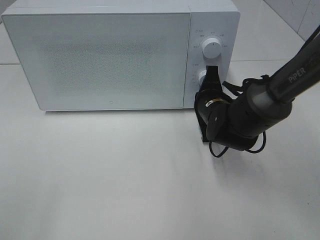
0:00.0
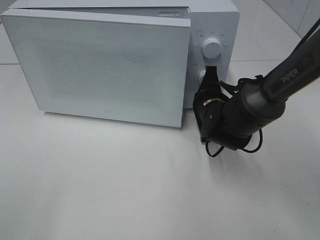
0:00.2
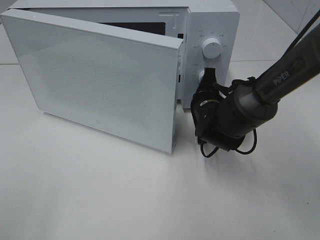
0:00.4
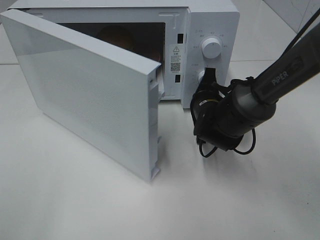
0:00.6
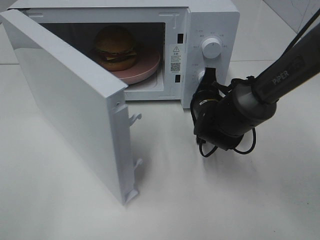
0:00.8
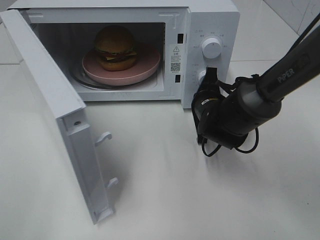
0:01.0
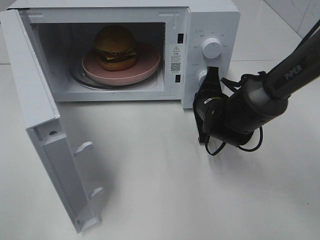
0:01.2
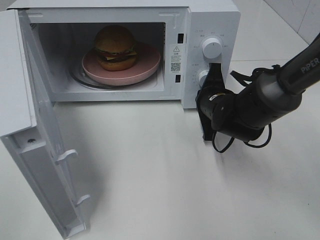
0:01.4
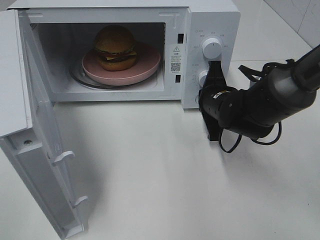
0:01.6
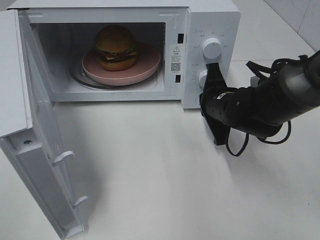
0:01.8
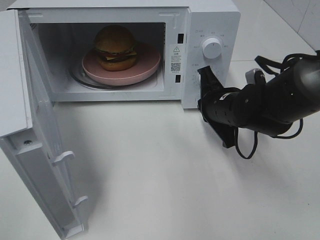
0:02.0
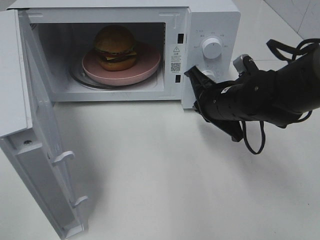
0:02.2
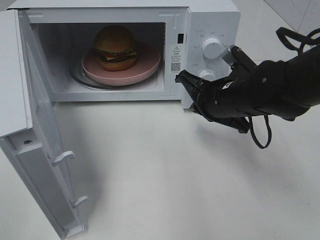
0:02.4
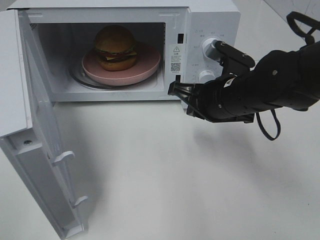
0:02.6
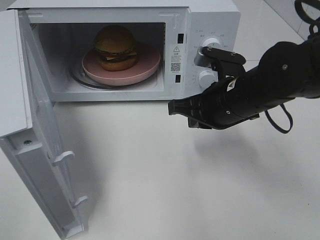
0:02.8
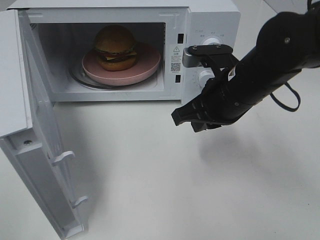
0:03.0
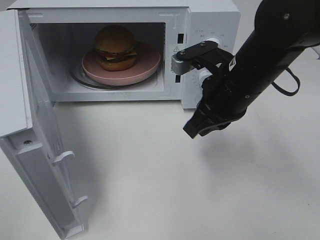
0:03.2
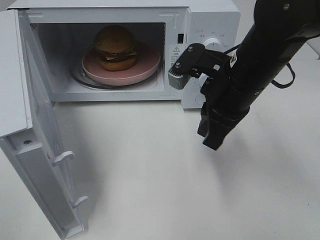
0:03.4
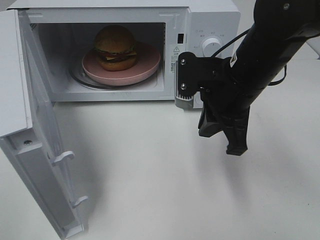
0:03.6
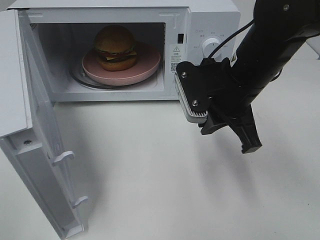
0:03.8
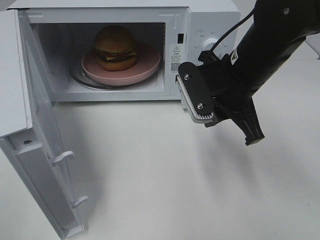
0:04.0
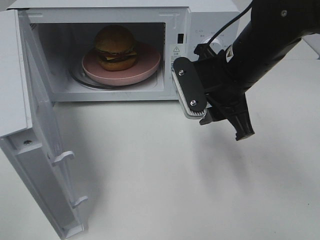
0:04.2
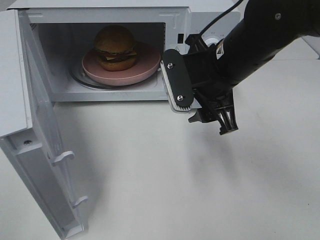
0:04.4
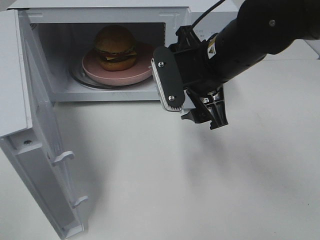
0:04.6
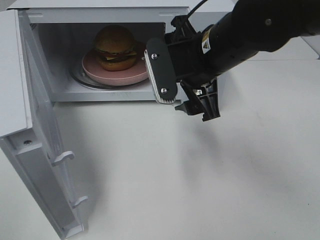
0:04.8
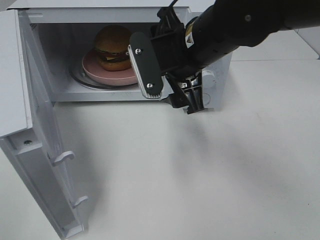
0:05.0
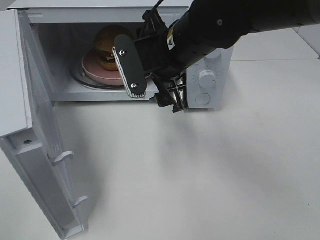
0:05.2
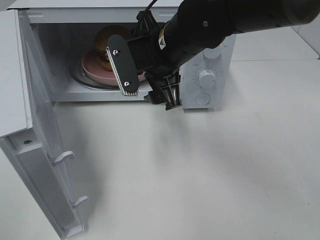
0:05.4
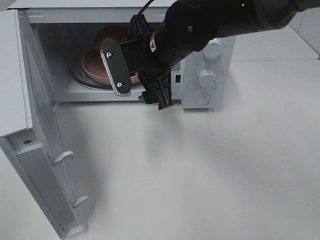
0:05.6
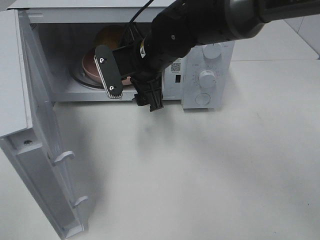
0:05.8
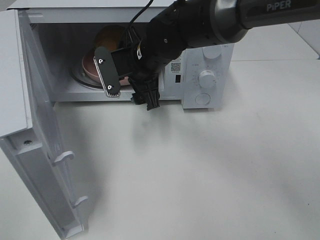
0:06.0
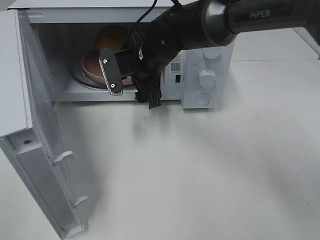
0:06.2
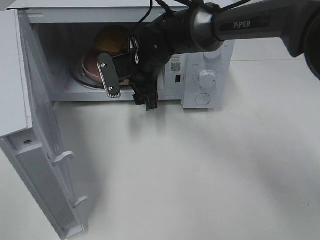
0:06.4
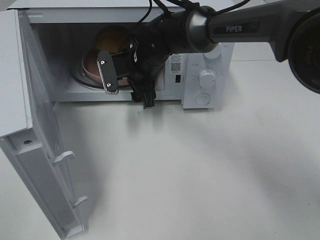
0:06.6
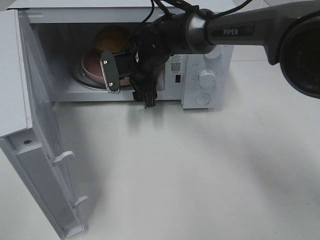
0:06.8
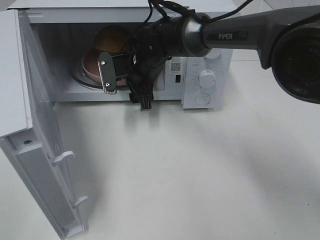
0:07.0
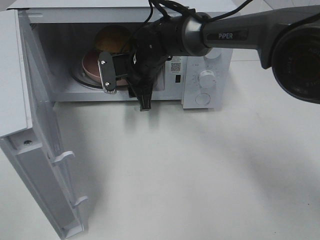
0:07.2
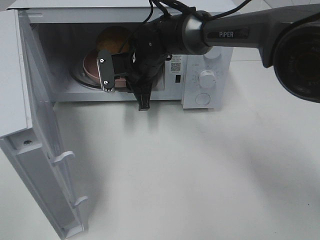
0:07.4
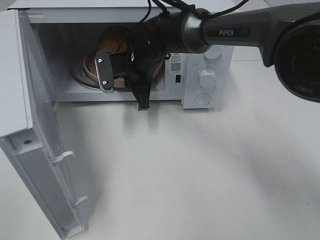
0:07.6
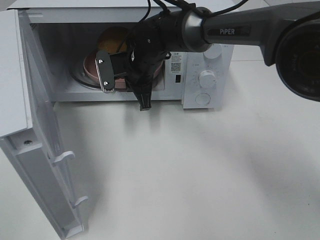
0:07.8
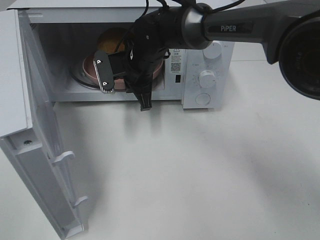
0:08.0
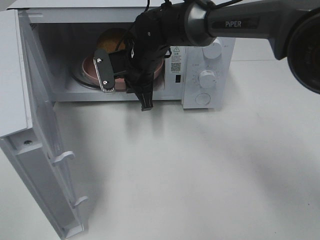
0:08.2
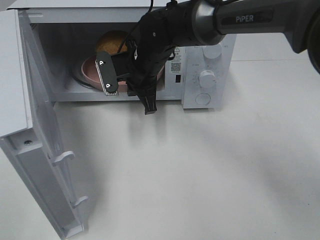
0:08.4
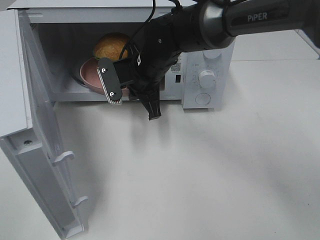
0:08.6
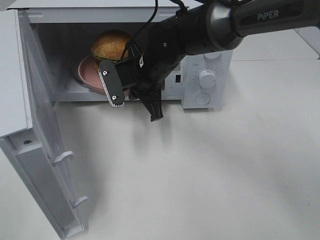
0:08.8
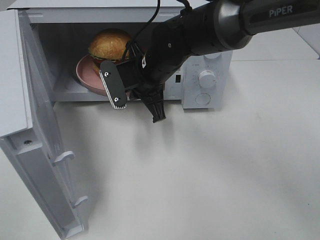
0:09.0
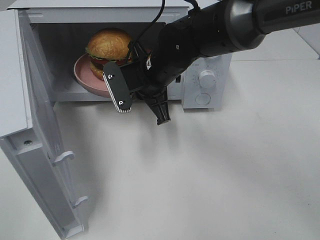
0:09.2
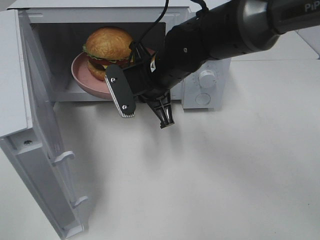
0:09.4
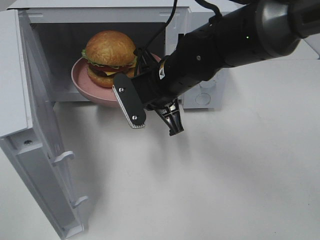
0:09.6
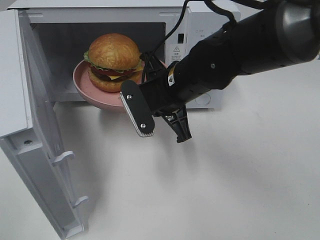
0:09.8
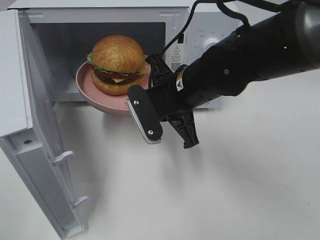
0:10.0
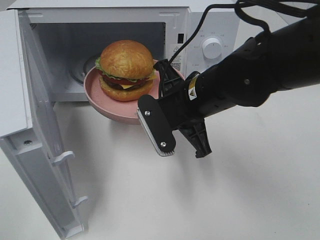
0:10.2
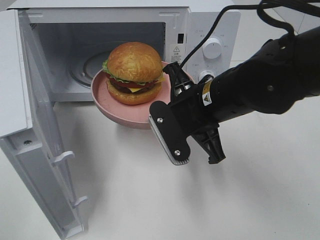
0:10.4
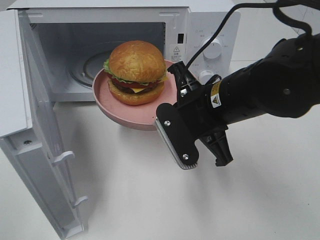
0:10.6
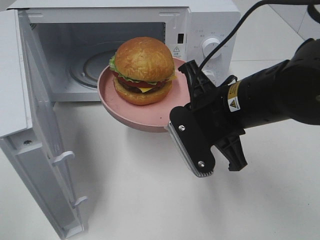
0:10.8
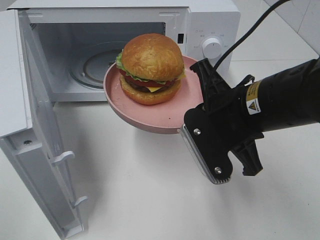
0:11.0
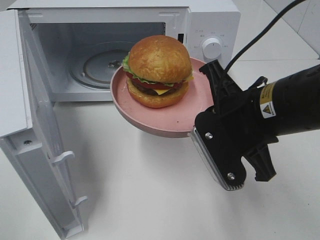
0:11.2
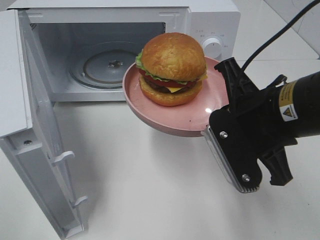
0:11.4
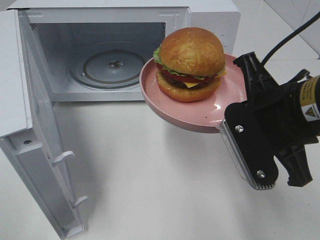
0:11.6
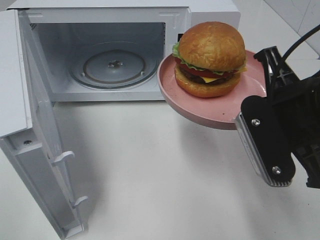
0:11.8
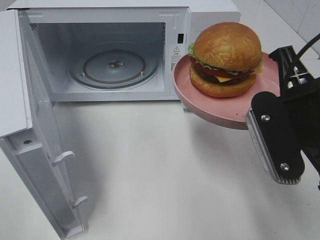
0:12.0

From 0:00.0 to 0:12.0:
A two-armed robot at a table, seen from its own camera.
Task of the whole recording: Heat the burger.
Step, from 0:02.0 to 0:07.6: Right hand: grab the plate with the hamburger.
From 0:01.6 to 0:03.0: The right gripper moves upward and backward, some 10 cm.
From 0:03.0 to 0:04.4: The right gripper opens up.
From 0:04.4 to 0:06.0: The right gripper is displaced to the left and forward by some 15 cm.
From 0:06.0 to 0:07.6: The right gripper shifts some 5 cm forward, and closes up.
From 0:07.6 to 0:09.0: The right gripper travels backward by about 5 cm.
From 0:09.0 to 0:10.4: The right gripper travels backward and to the right by approximately 15 cm.
From 0:10.4 to 0:12.0: The right gripper is displaced to the right, backward and upward by some 15 cm.

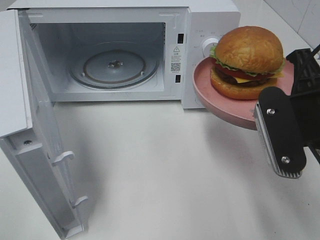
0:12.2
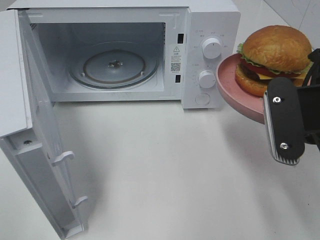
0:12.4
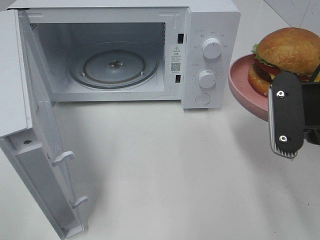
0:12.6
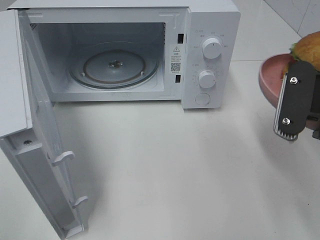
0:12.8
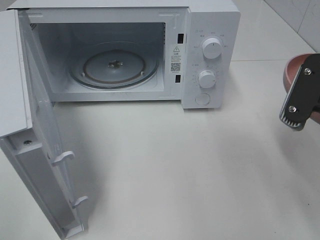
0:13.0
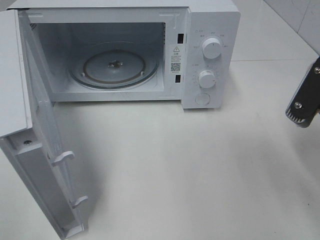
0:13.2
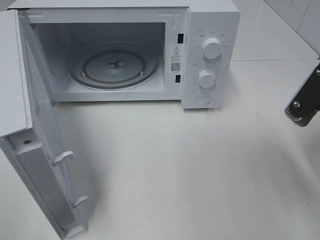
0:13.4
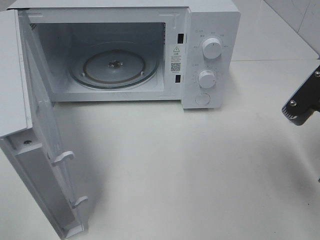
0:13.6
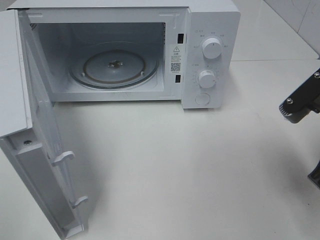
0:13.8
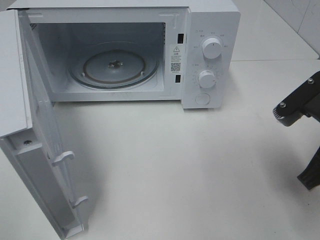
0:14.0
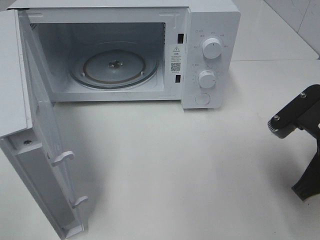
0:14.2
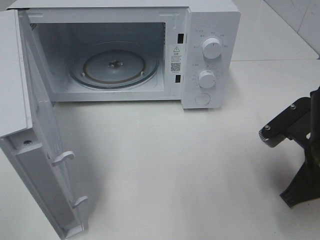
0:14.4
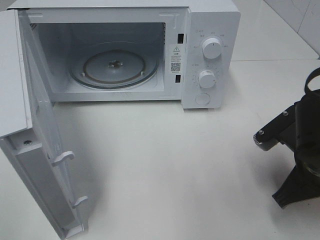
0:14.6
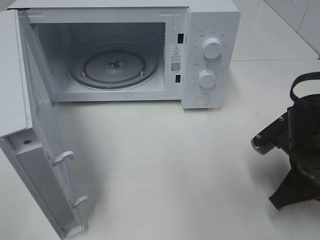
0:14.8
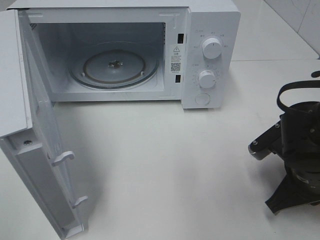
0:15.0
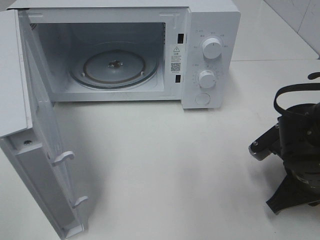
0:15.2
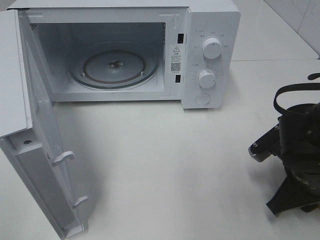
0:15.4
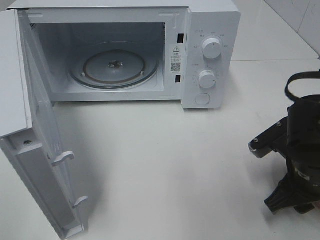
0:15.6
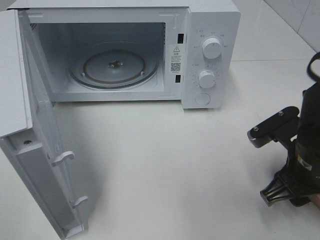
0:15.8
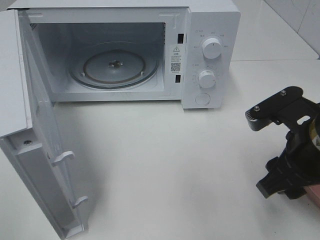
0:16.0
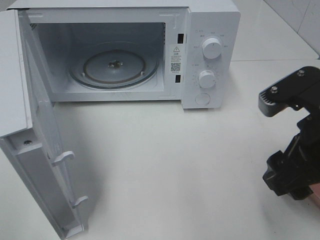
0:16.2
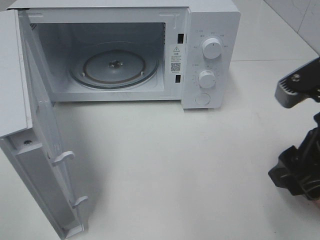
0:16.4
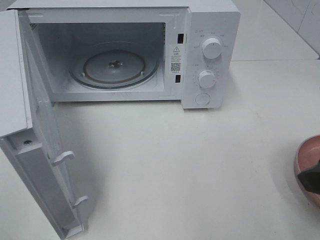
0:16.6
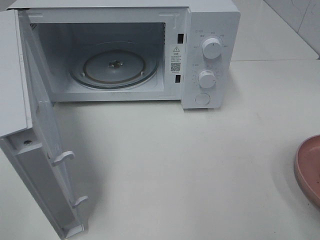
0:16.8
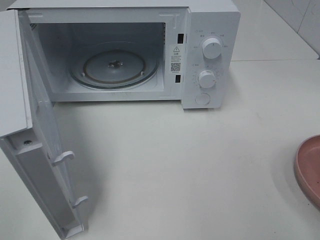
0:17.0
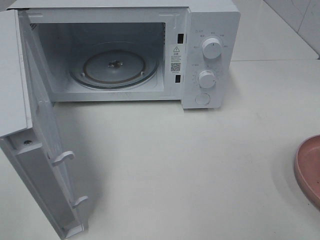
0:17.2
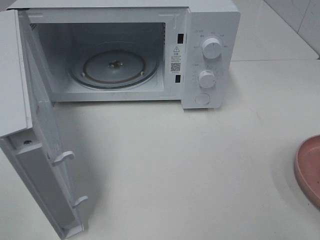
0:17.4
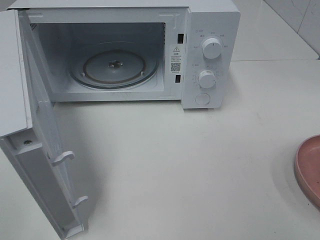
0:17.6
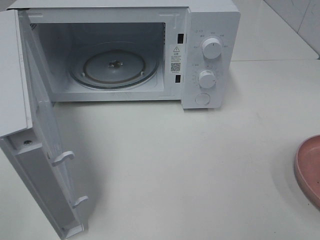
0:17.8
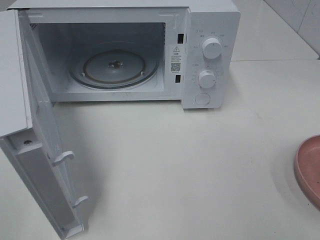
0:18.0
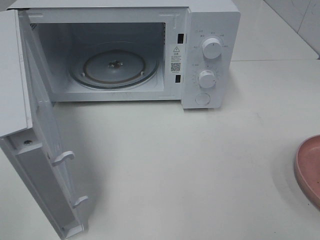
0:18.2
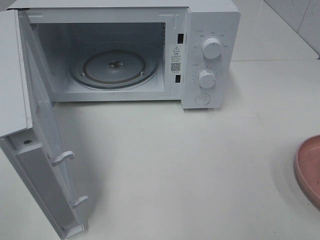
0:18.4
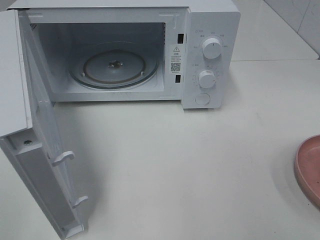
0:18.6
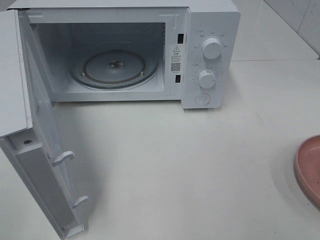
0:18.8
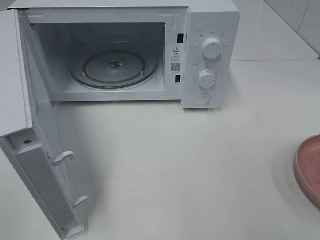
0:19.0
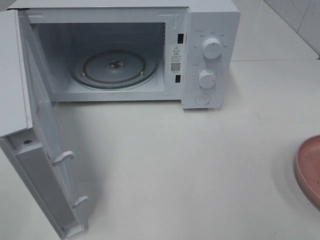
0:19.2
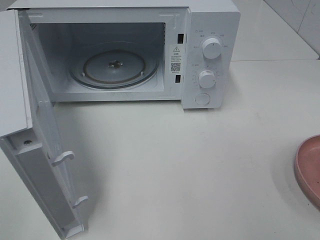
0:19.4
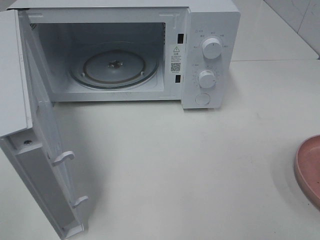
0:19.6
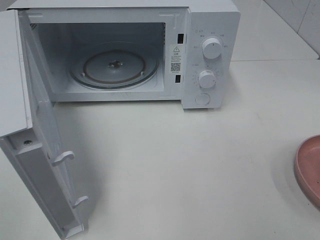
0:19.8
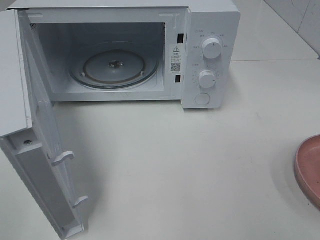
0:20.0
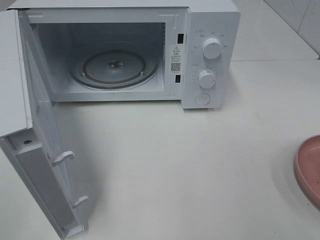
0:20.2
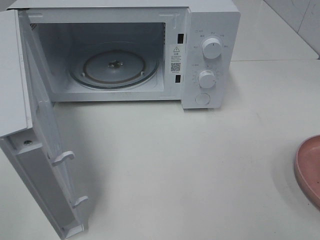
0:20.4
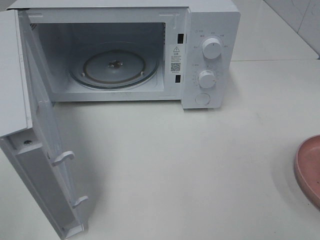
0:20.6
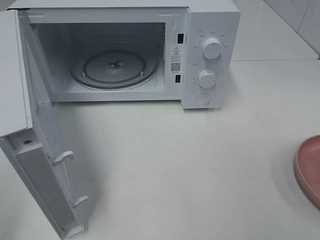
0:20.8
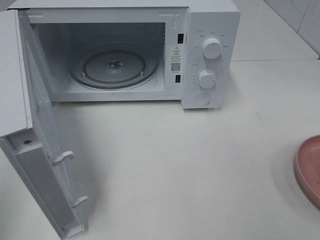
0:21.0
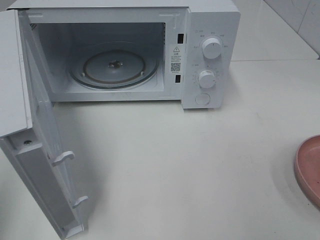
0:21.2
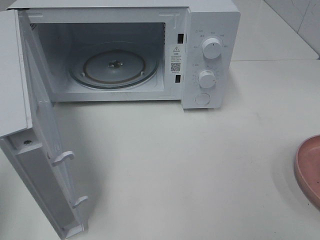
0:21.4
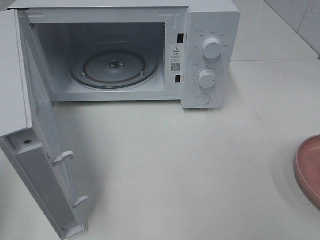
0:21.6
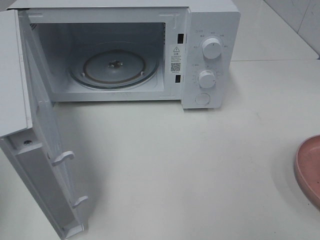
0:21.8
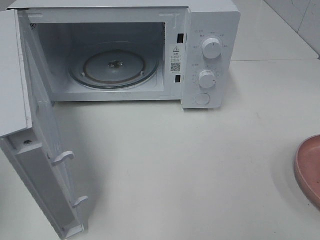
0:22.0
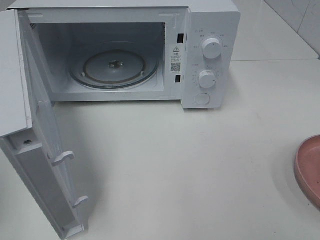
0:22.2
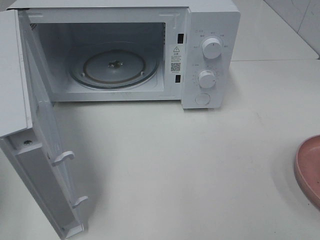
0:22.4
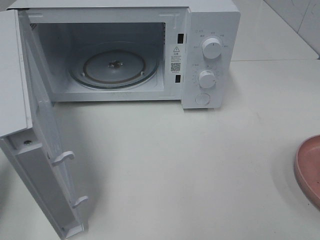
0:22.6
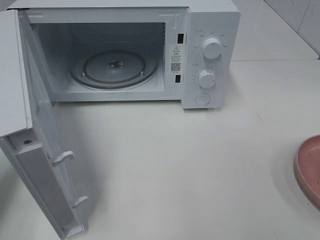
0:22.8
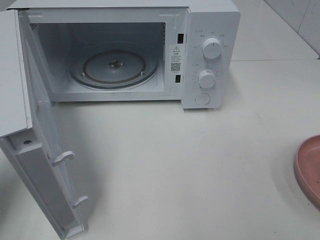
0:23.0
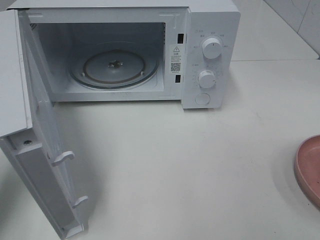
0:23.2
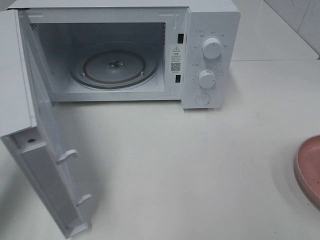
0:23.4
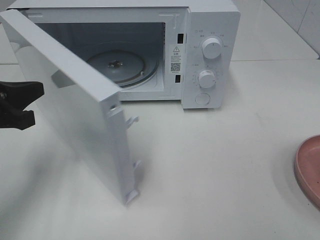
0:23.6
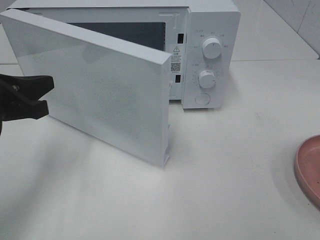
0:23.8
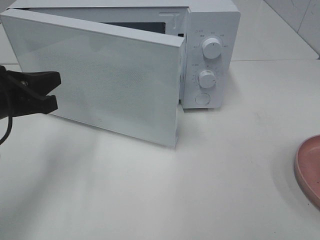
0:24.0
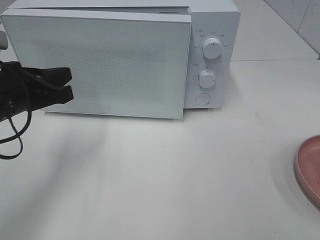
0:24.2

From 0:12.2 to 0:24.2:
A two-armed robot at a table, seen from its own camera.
Task of the whole recording: Heat the burger.
Step, from 0:12.2 to 0:15.4: Right hand: place the plate on the table.
From 0:13.8 to 0:15.2: The right gripper goes some 10 cm downward.
From 0:15.2 to 0:16.6: The right gripper goes approximately 20 cm upward and backward, and opens.
From 0:16.6 to 0:18.2: The right gripper is displaced backward and to the right by about 15 cm.
From 0:18.2 to 0:19.8: Both grippers stay about where they are.
From 0:22.6 to 0:24.2: The left gripper moves to the right and forward, approximately 15 cm.
